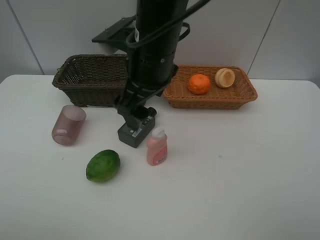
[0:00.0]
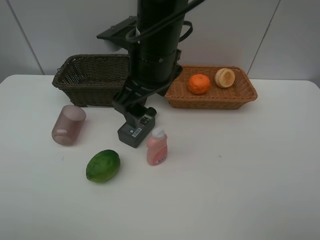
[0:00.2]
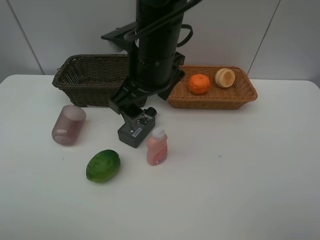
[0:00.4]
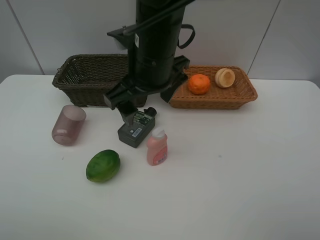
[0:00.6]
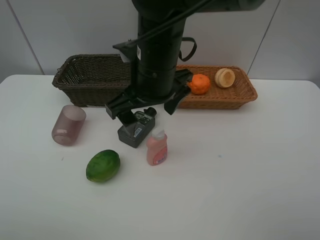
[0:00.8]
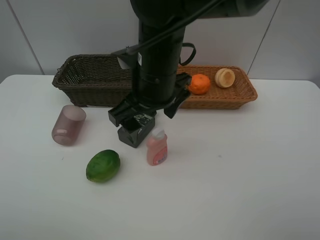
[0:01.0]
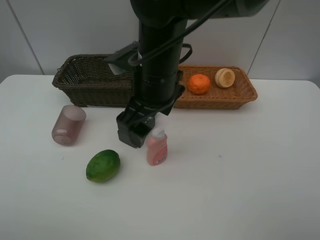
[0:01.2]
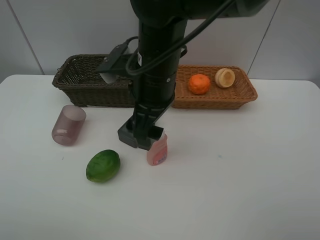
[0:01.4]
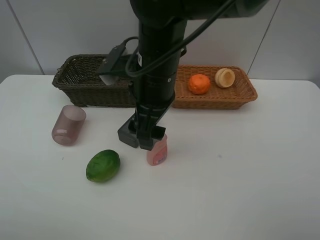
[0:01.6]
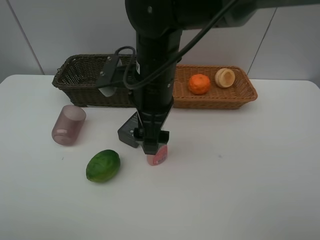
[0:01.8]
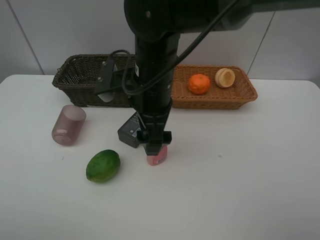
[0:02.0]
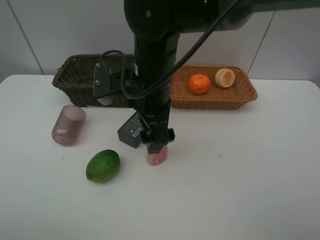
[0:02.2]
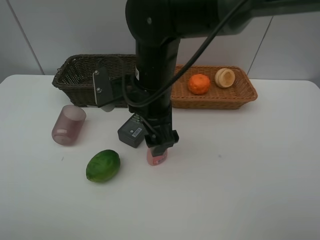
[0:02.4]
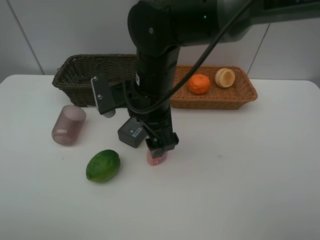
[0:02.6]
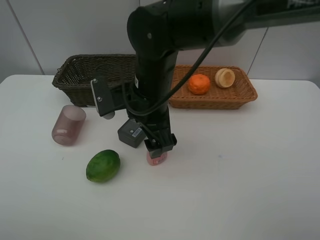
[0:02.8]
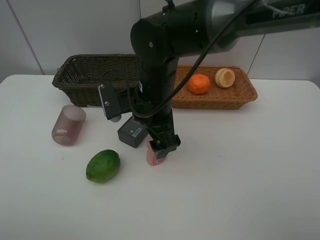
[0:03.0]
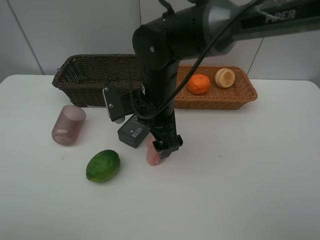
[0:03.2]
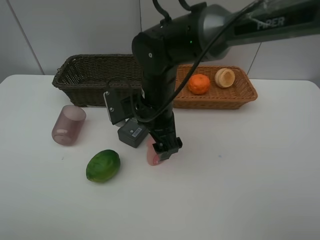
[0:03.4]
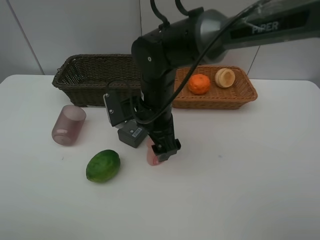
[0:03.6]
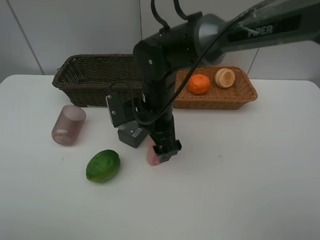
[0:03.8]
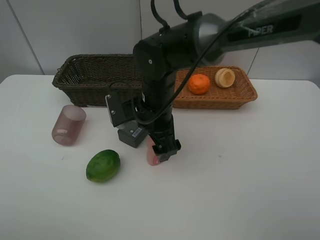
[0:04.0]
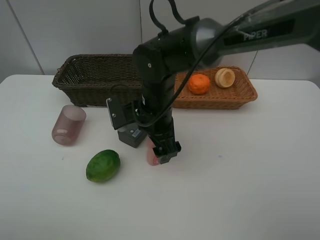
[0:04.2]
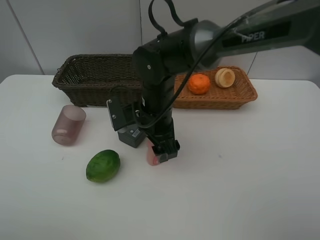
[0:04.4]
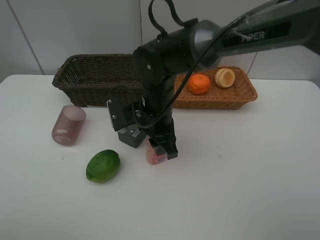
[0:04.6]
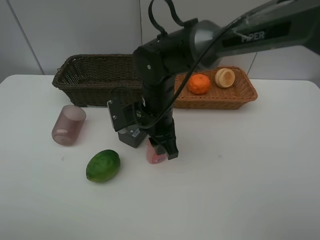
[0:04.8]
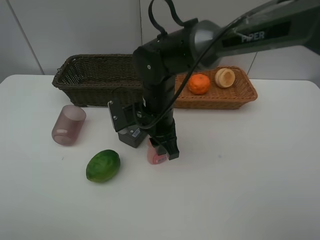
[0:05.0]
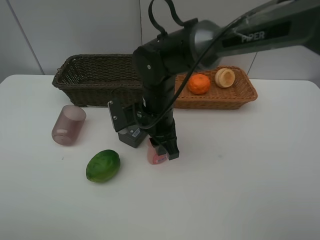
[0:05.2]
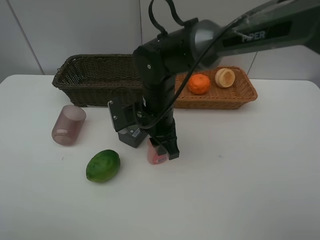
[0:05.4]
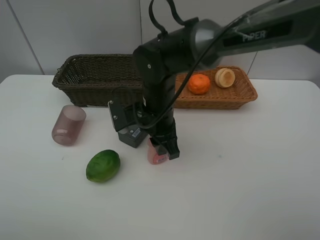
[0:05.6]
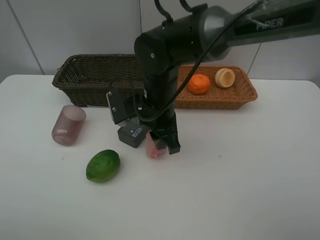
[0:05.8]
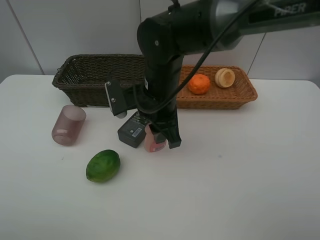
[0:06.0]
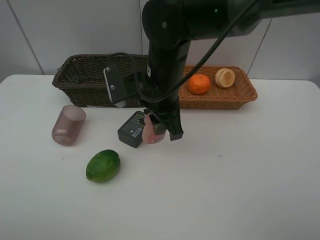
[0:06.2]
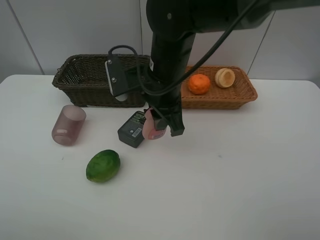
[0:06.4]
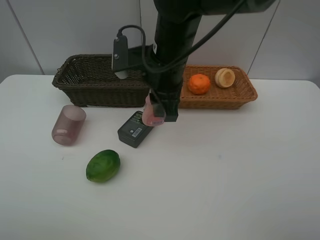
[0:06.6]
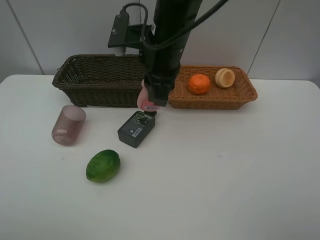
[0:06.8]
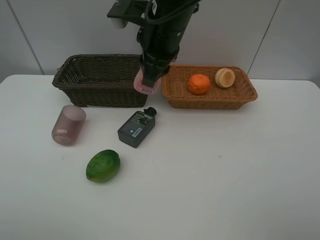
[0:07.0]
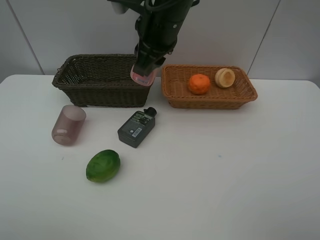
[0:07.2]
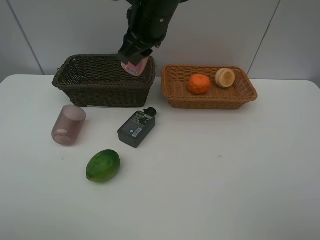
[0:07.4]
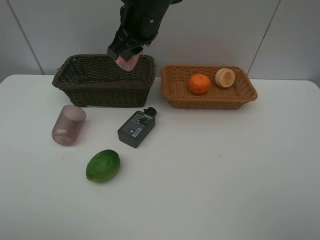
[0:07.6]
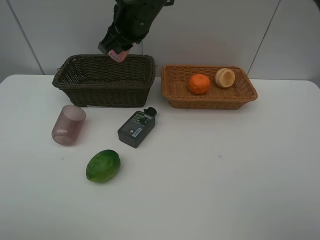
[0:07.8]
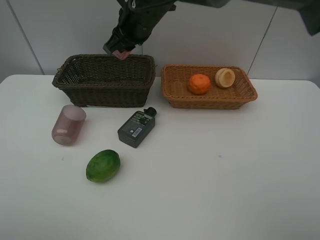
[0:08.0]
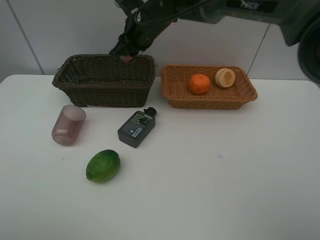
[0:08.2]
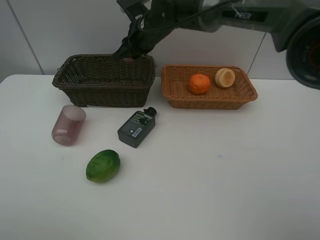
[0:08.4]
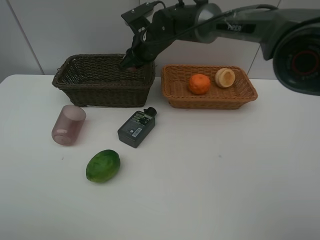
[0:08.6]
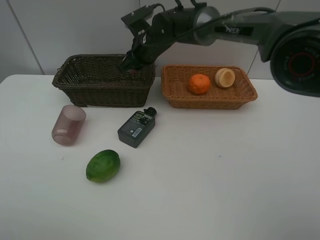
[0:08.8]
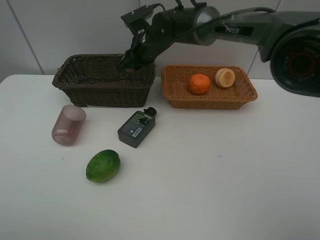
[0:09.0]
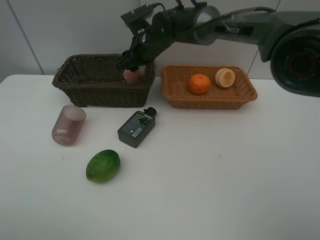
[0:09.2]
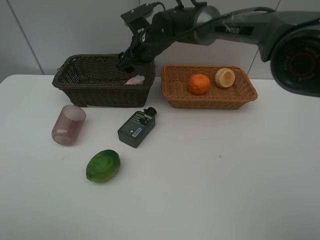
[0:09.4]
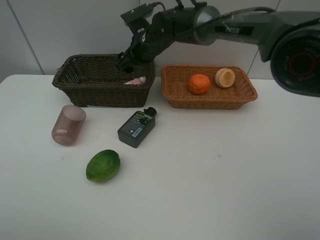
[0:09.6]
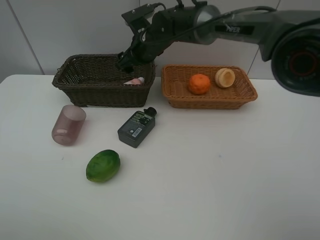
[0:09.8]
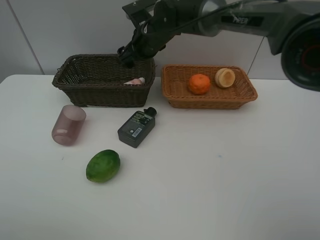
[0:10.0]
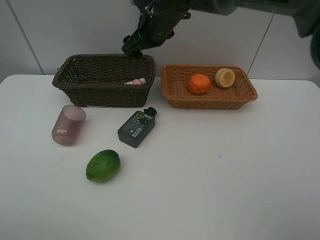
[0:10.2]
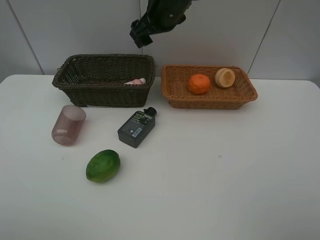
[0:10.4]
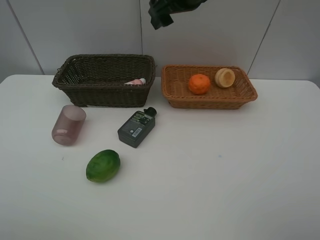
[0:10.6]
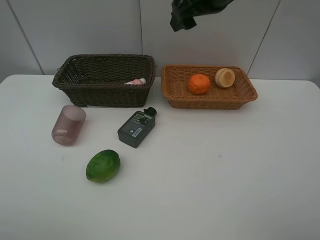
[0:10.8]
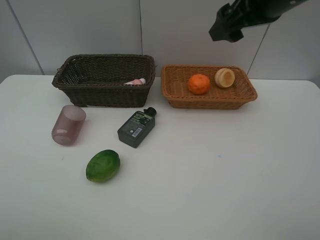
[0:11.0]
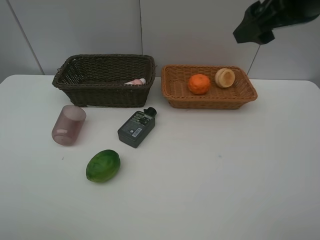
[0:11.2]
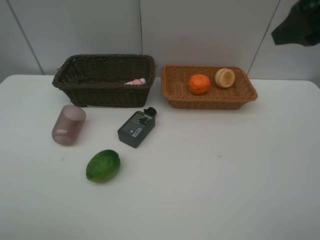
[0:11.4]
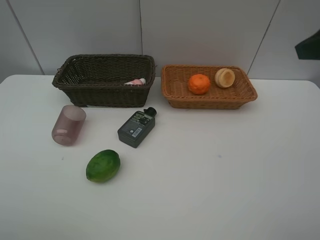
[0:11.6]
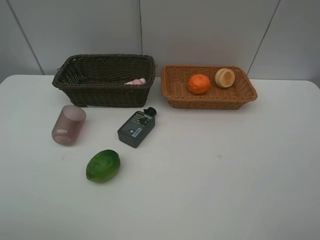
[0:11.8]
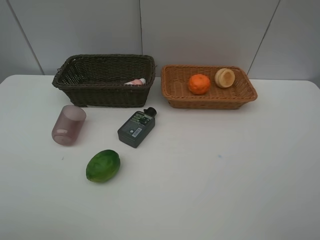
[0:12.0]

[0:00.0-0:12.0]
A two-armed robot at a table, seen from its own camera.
Task of the whole recording: place multiple objects separately in different baskets.
0:01.6 to 0:03.0: The right gripper goes approximately 5 cm downward.
0:03.0 to 0:04.4: There are only small adjustments of the grippers.
0:04.4 to 0:06.0: The right gripper closes.
0:06.0 to 0:07.6: The right gripper heads upward and forward, covering approximately 15 cm.
0:07.6 to 0:09.0: The right gripper goes approximately 15 cm downward and forward.
0:09.0 to 0:10.4: The right gripper travels upward by about 10 cm, and opens its fingers.
0:10.4 to 0:12.0: The right gripper shifts roughly 40 cm backward and to the right.

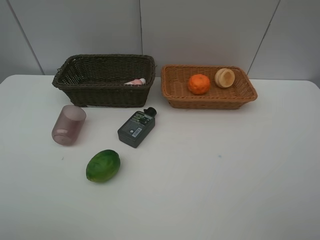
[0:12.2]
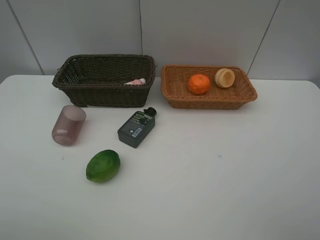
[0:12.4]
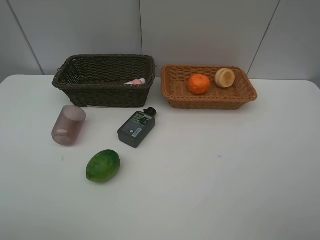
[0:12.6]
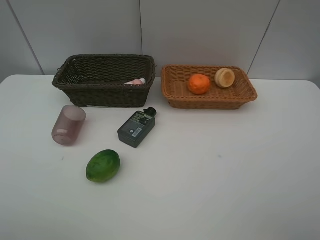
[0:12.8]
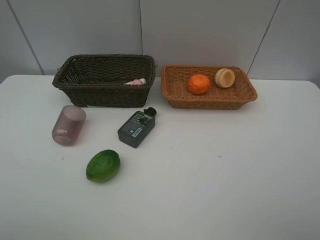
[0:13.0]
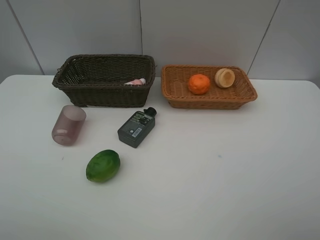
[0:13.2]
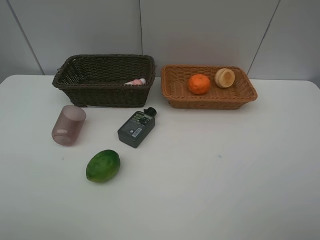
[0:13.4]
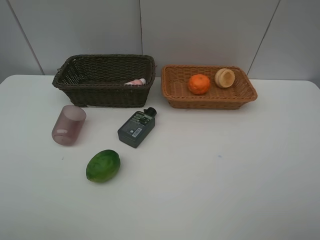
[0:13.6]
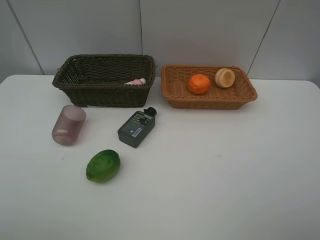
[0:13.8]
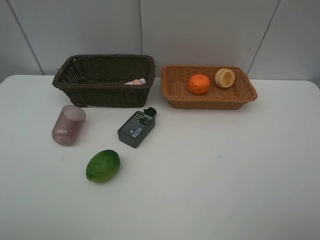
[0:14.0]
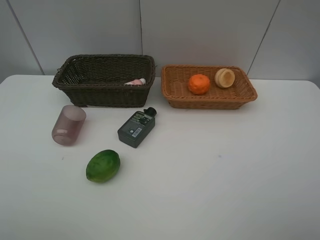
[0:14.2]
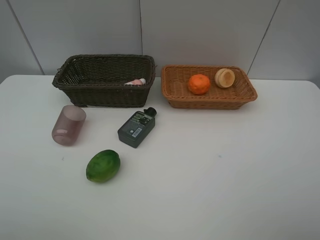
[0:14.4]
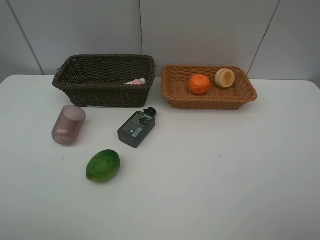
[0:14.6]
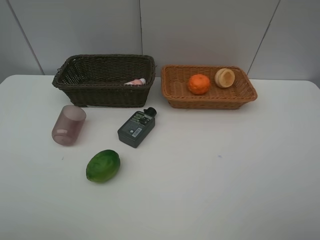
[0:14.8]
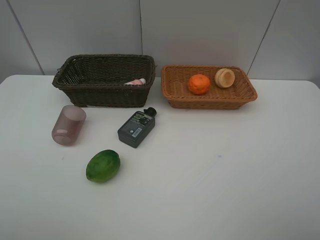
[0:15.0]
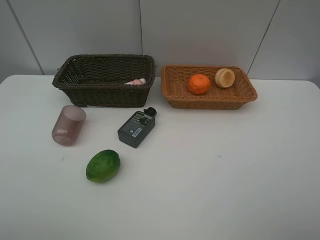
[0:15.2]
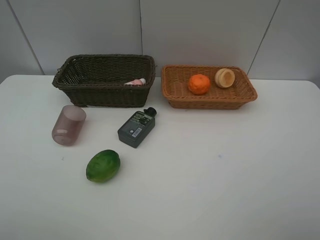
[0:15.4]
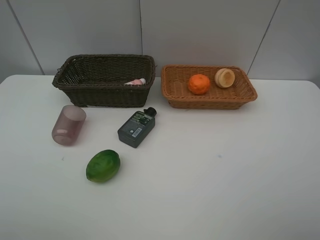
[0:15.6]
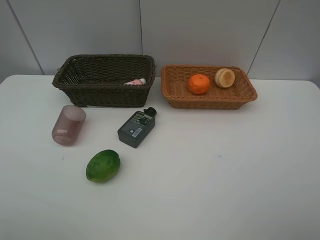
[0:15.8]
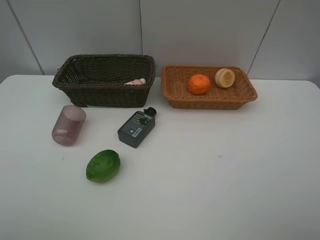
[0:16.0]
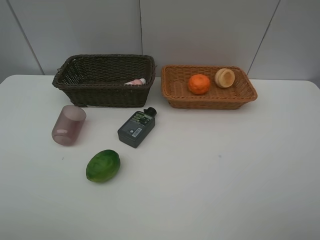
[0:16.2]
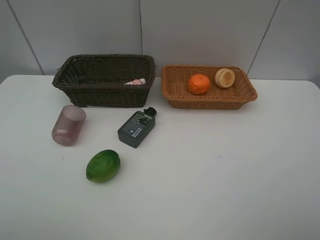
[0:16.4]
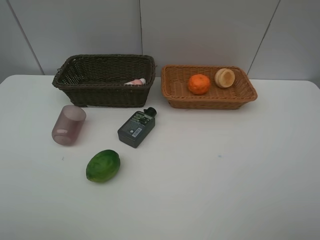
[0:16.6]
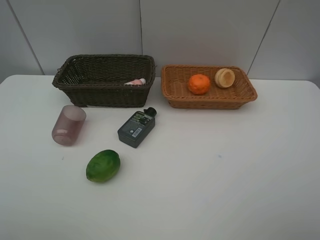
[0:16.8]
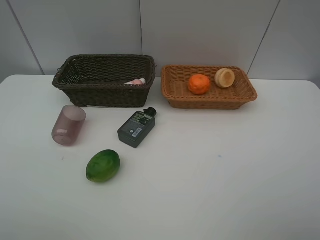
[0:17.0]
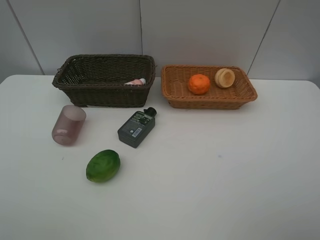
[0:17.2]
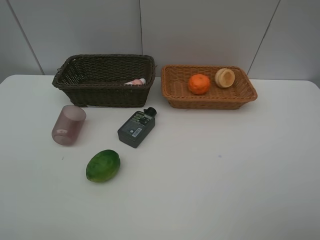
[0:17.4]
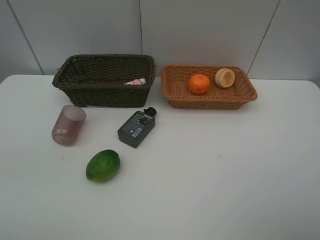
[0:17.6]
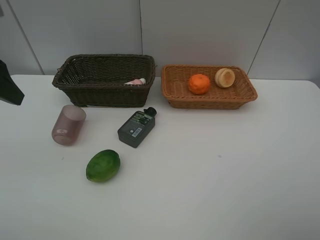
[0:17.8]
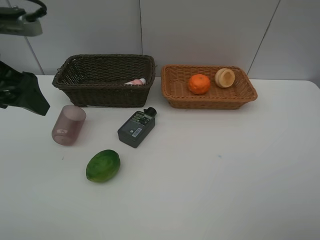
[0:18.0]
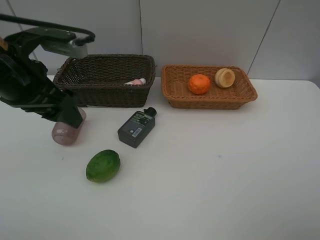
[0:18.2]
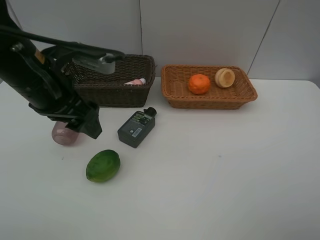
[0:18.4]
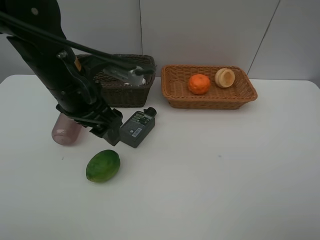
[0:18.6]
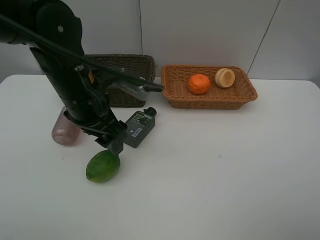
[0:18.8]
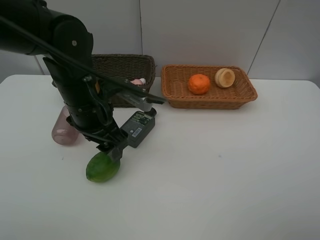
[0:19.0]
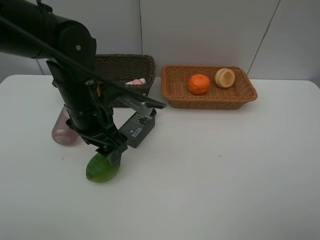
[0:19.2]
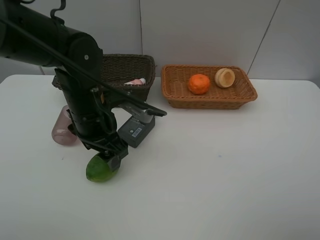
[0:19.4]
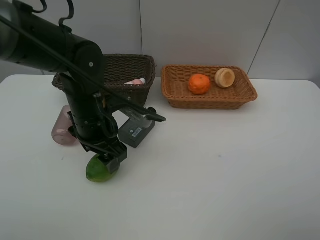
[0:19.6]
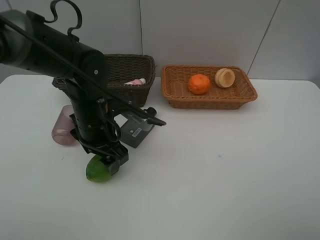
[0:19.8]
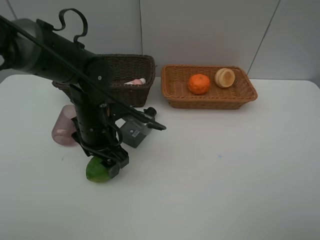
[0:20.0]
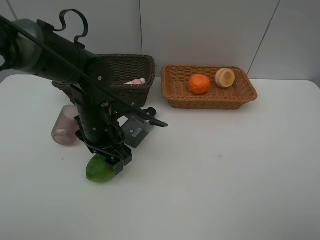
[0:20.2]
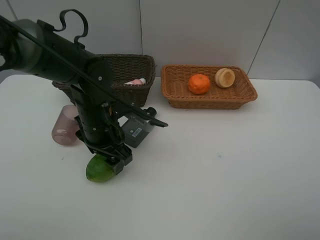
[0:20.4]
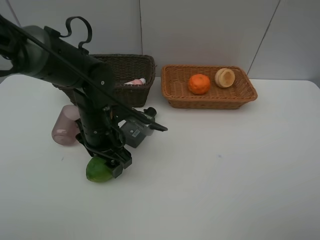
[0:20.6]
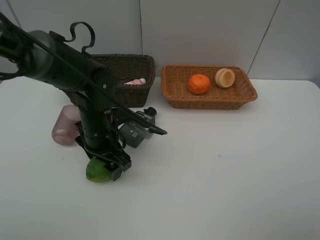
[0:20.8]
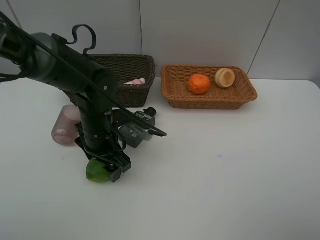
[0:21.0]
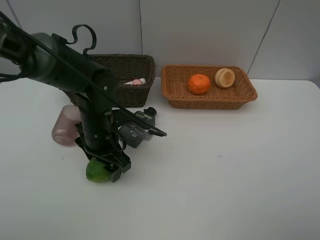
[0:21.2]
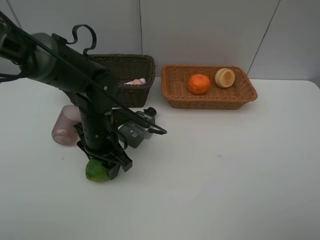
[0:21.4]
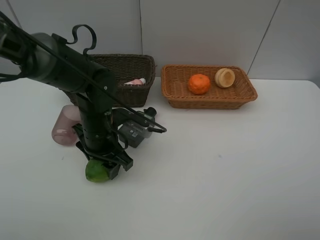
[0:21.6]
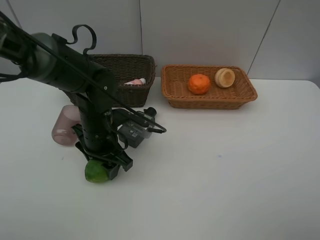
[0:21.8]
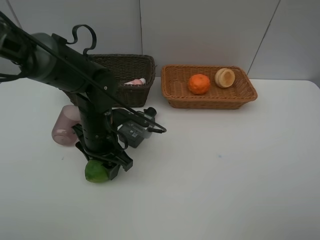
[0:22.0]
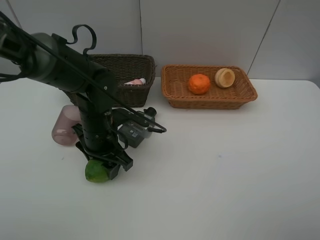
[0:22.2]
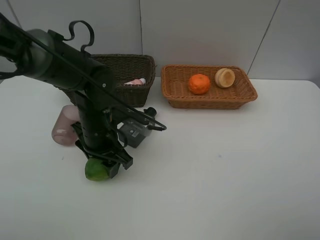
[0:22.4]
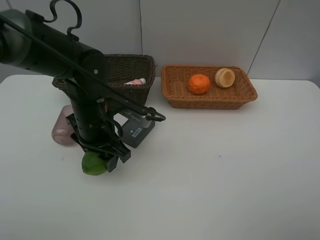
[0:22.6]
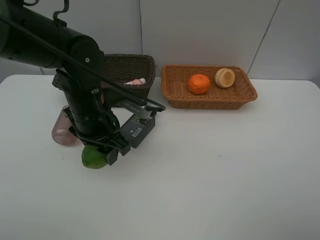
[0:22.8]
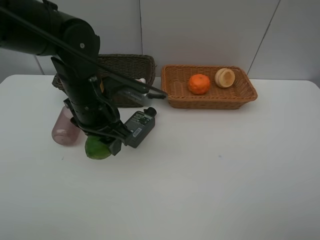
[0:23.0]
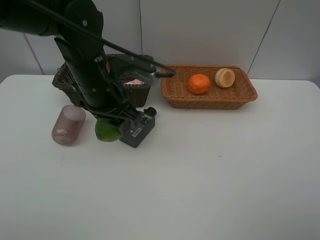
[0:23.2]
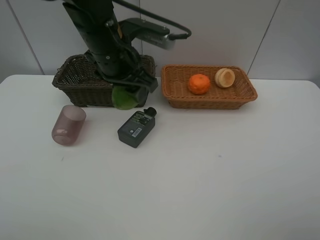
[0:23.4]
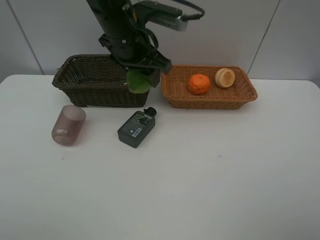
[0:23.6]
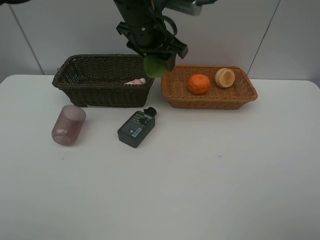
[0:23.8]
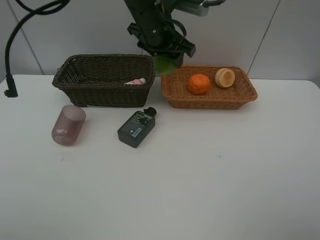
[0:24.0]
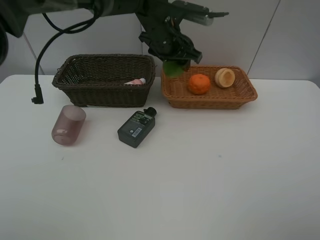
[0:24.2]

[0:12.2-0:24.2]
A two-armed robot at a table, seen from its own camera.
Task of the whole recording: place multiple objects separately in different baskets.
0:13.8 to 0:16.6: Both grippers stay about where they are.
0:16.6 to 0:18.2: The left gripper is displaced forward and to the right by approximately 25 cm.
0:18.2 to 0:19.8: The left gripper travels downward and to the right by approximately 15 cm.
0:19.8 to 0:21.2: The grippers make only small movements.
0:21.2 to 0:22.6: The left gripper closes its fingers.
0:22.6 to 0:24.2: The left gripper is displaced forward, to the right and upward by some 20 cm.
